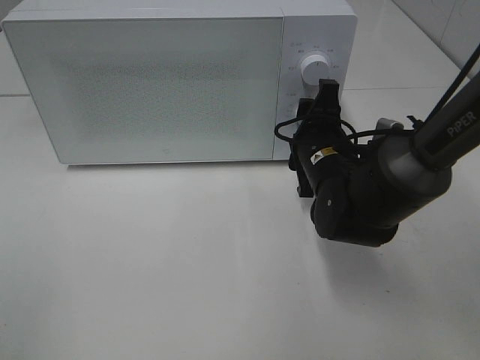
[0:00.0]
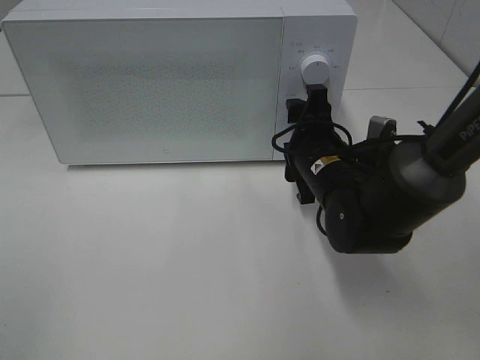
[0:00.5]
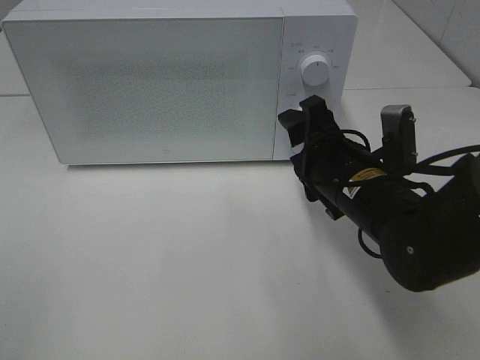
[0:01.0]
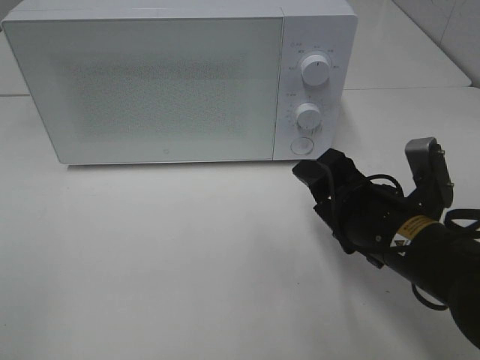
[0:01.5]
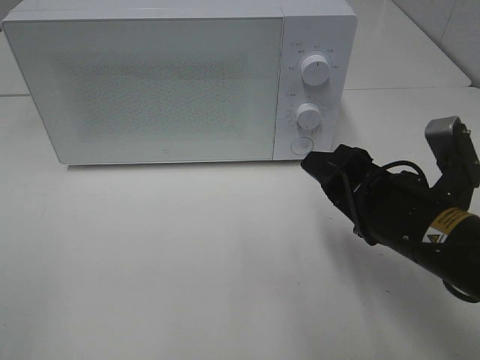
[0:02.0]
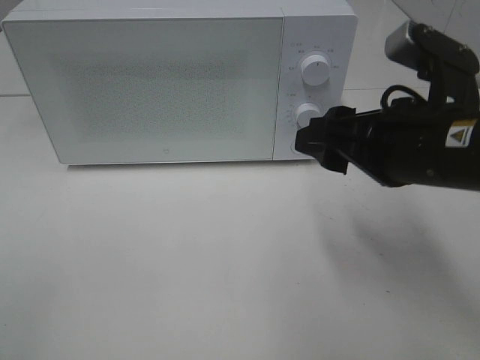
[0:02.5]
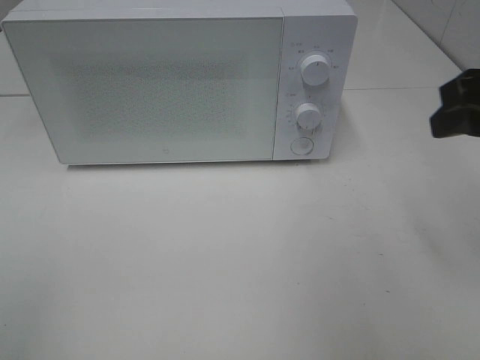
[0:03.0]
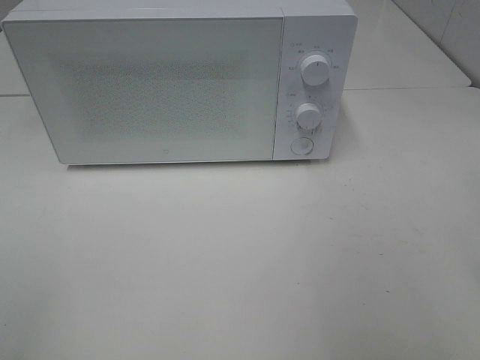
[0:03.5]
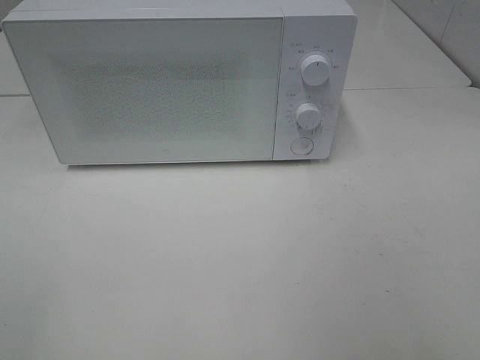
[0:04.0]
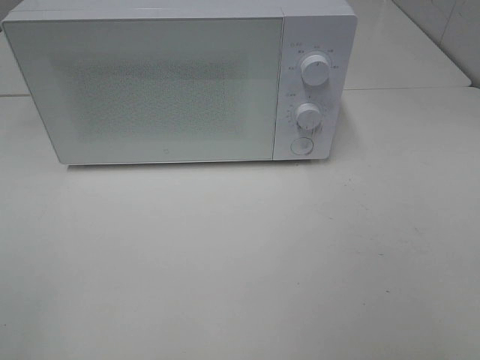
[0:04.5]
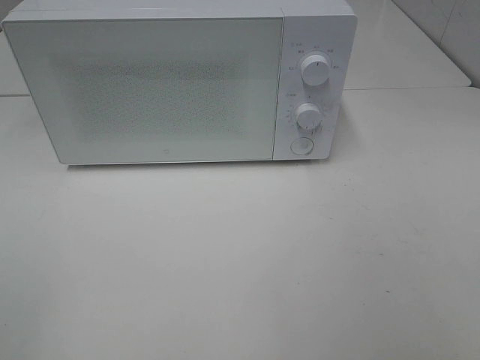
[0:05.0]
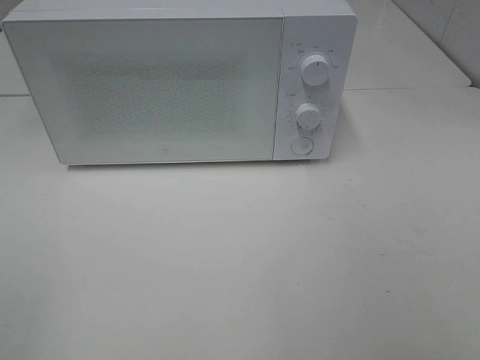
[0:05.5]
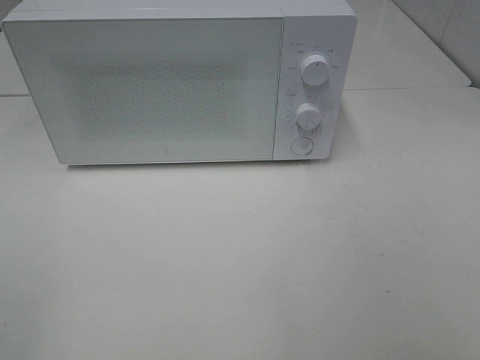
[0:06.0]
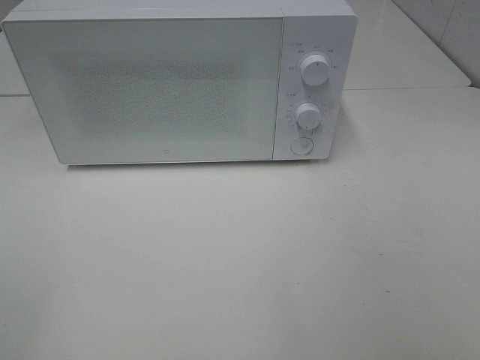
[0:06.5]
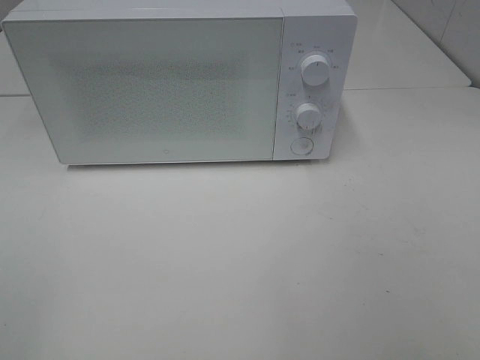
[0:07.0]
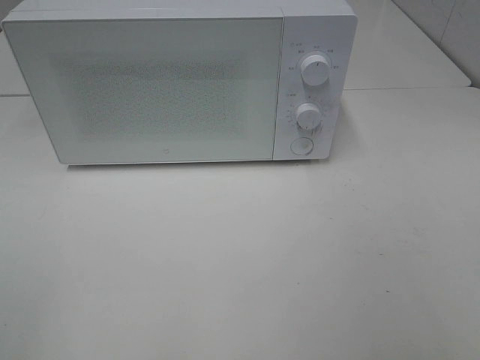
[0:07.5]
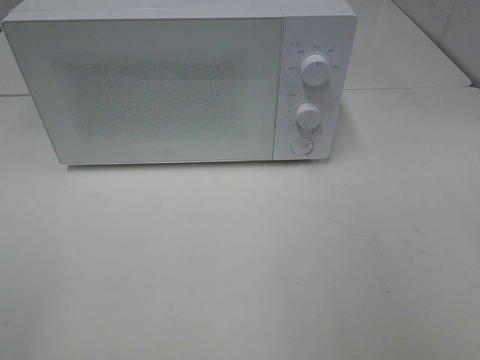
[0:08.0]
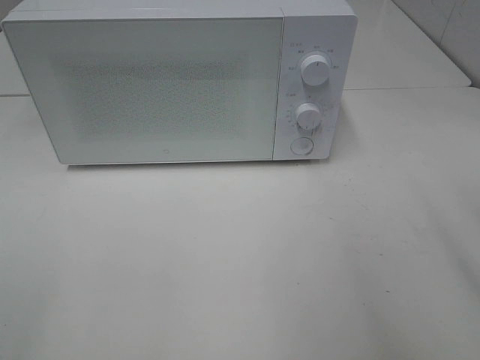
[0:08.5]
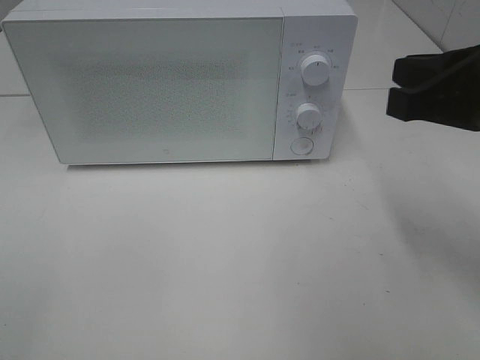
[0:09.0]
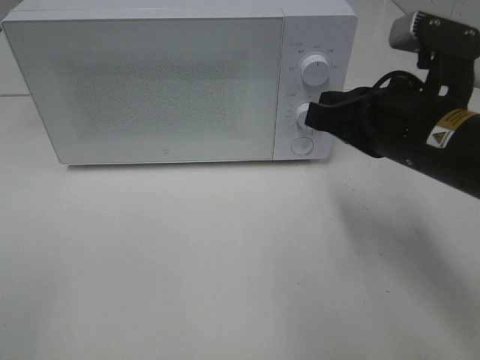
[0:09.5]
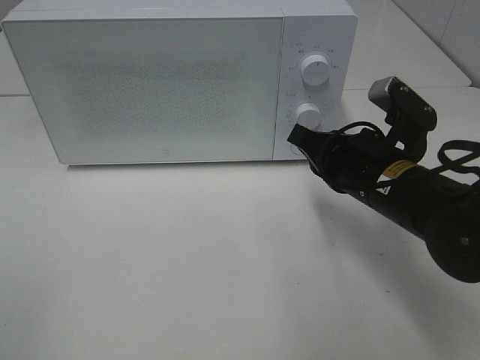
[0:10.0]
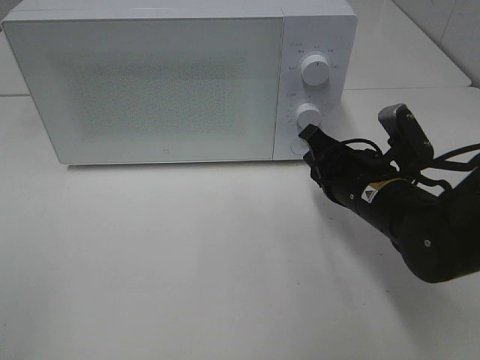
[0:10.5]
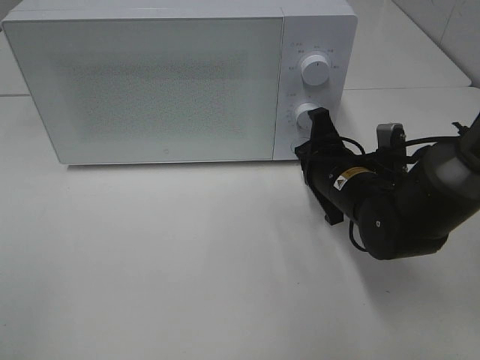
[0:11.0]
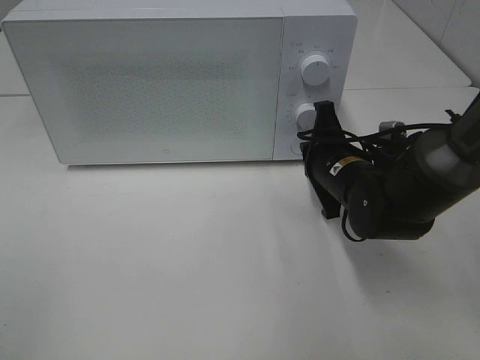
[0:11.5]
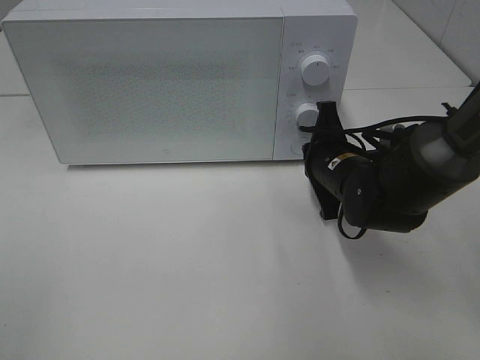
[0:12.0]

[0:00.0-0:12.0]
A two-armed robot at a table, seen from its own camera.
Task of the whole recording: Heat Sandwich.
0:00.0 to 0:02.0: The right gripper heads backward, covering roughly 15 cm.
0:02.0 to 0:04.0: The right gripper heads upward, backward and to the right, covering roughly 25 cm.
0:08.0 to 0:10.0: The right gripper shifts about 30 cm forward, downward and to the left, and closes.
0:10.0 to 0:12.0: The right gripper travels forward and downward by roughly 10 cm.

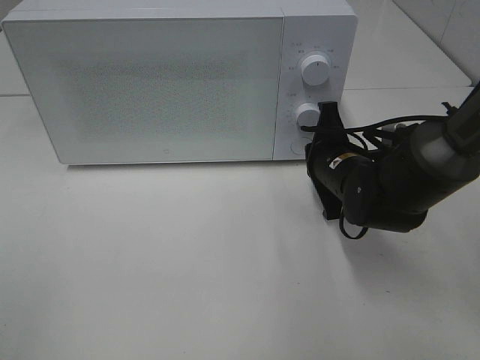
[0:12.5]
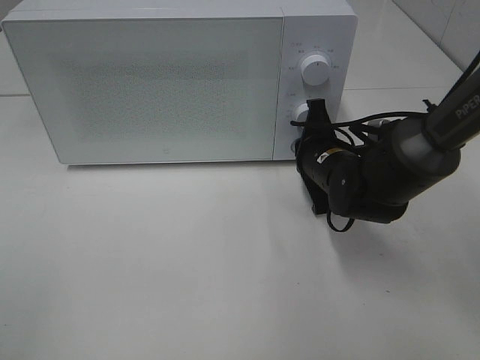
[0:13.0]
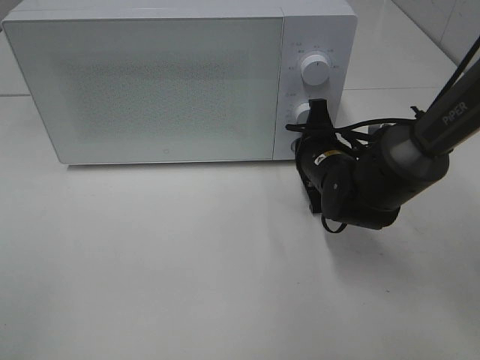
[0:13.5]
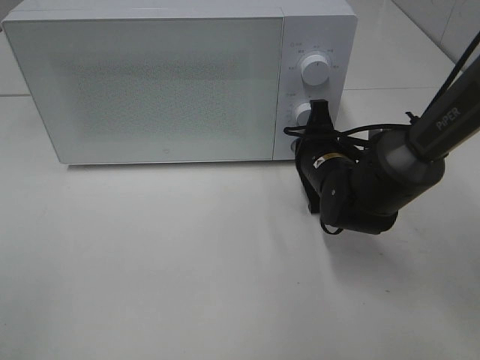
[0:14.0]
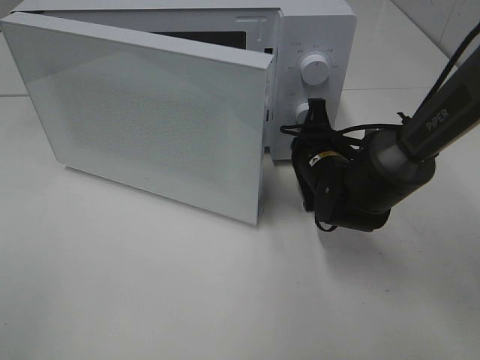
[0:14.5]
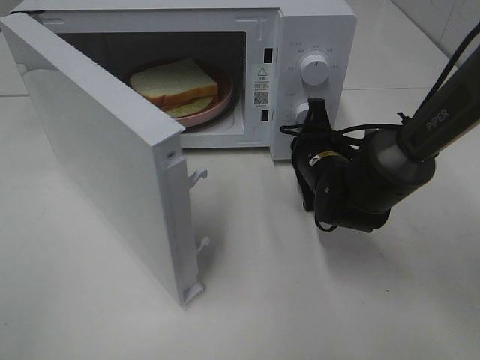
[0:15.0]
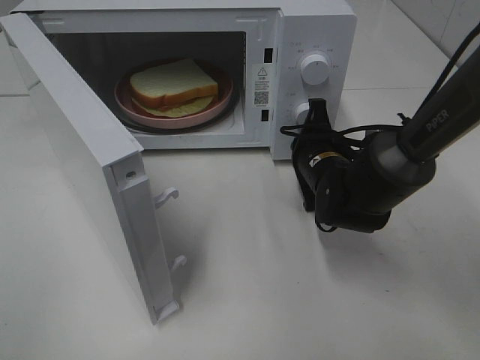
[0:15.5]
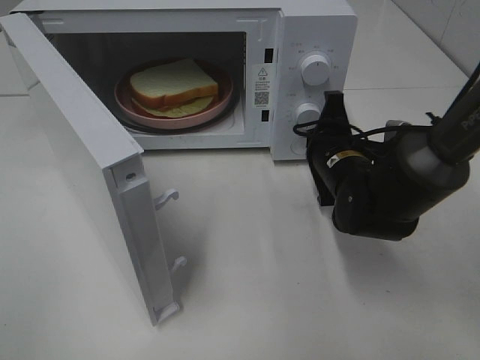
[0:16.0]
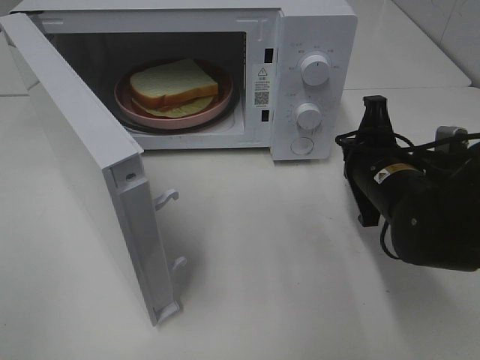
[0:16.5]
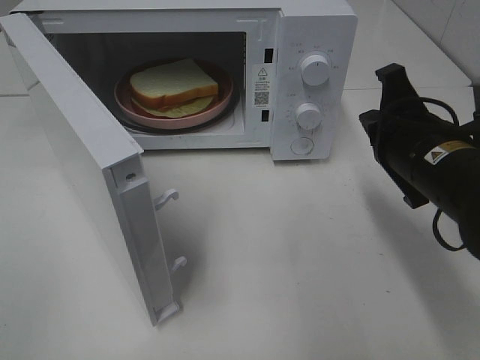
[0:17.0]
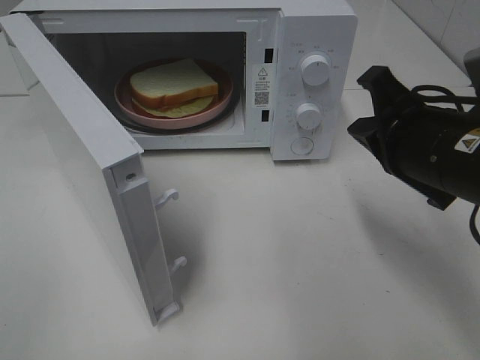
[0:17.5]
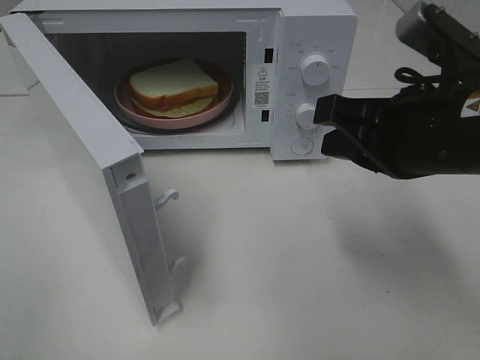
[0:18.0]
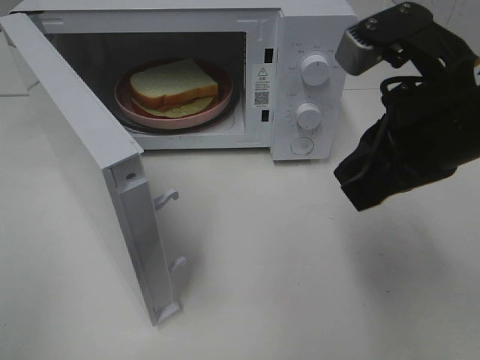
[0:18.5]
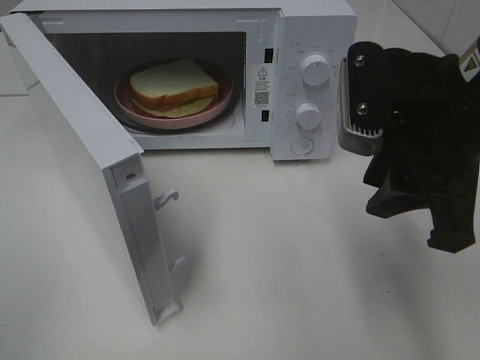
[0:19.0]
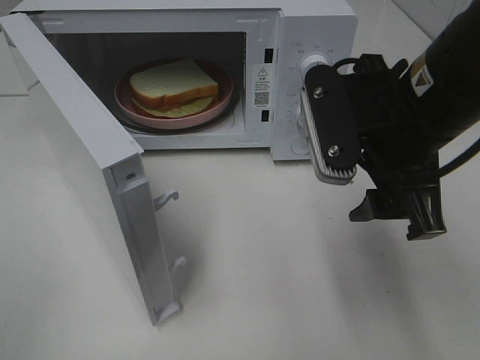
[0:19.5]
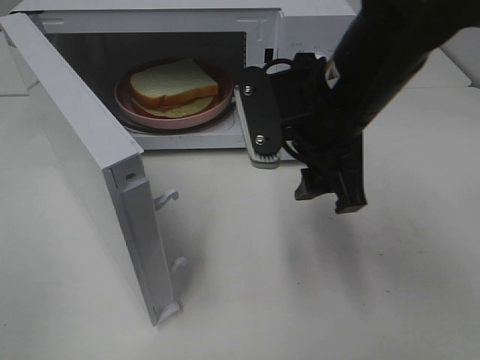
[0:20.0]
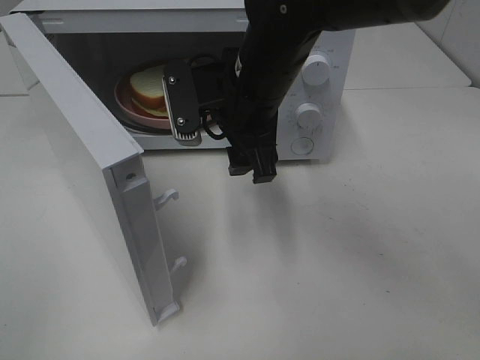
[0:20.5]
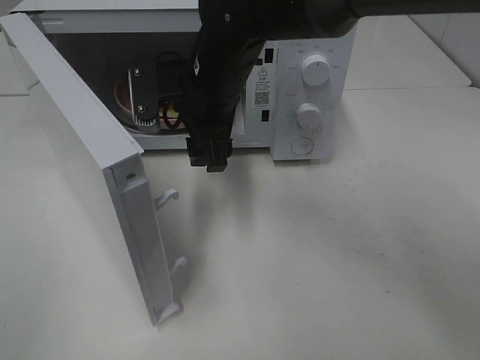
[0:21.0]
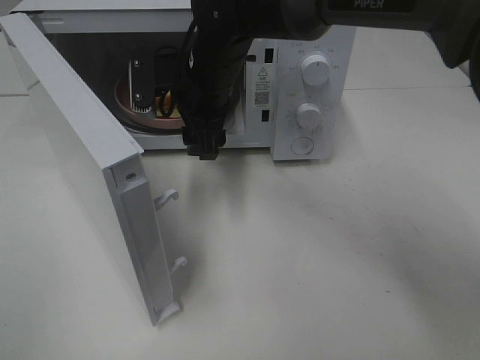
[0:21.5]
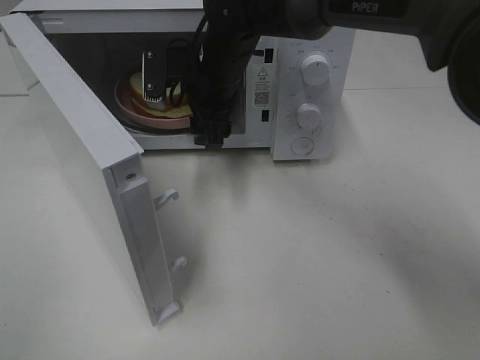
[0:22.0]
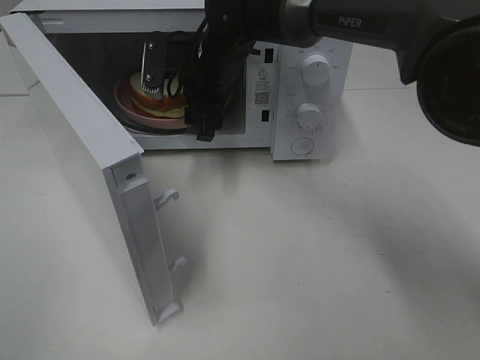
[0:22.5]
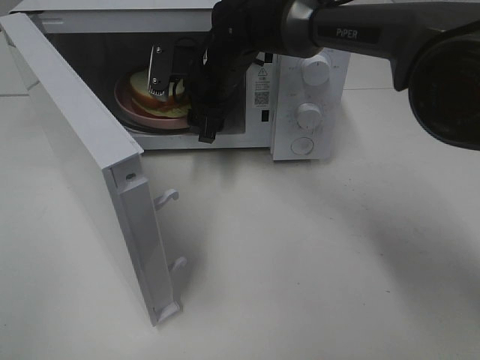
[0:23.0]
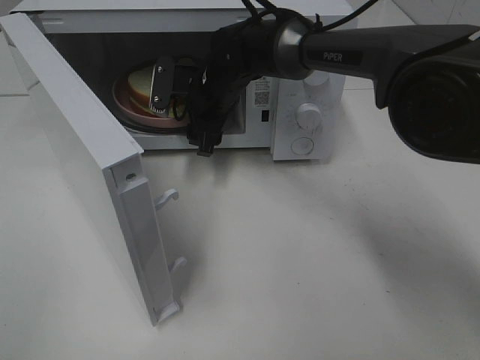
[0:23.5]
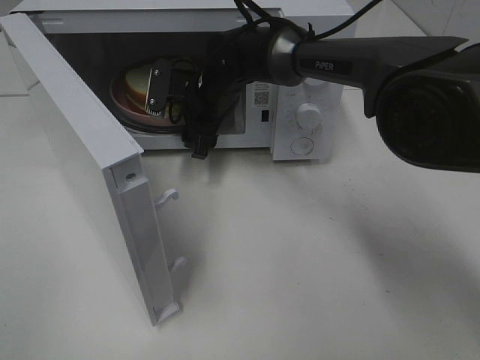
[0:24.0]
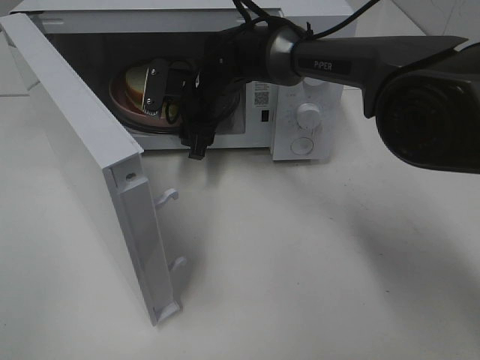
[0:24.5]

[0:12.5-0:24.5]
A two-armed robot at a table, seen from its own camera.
Task of the whole recording: Heat Sandwich.
Step, 0:12.5 to 0:16.0: Right hand: press the switch.
0:12.5 to 0:14.5: There are only small adjustments of the grippers.
0:14.5 to 0:16.5: The right gripper goes roughly 10 cm backward.
0:16.5 to 0:18.5: The right gripper is displaced upward and backward by some 15 cm.
0:18.5 to 0:20.5: The right gripper goes approximately 20 cm to the left and forward, and opens its fingers.
0:20.5 to 0:22.5: The right gripper is displaced forward by roughly 10 cm.
0:22.5 to 0:24.5: The right gripper travels downward by about 5 cm.

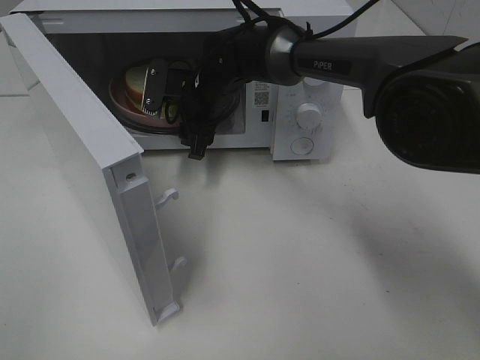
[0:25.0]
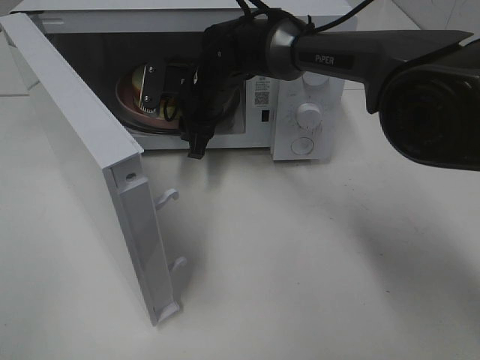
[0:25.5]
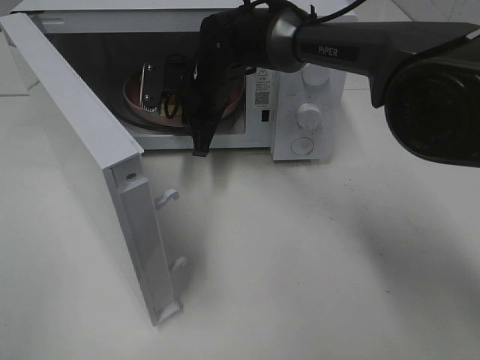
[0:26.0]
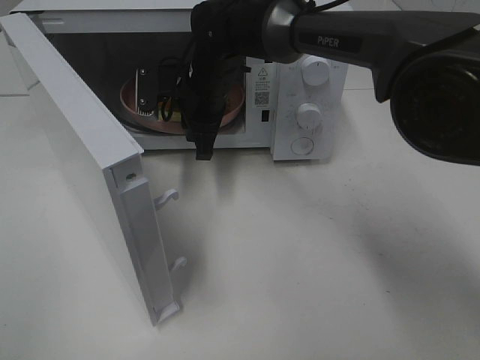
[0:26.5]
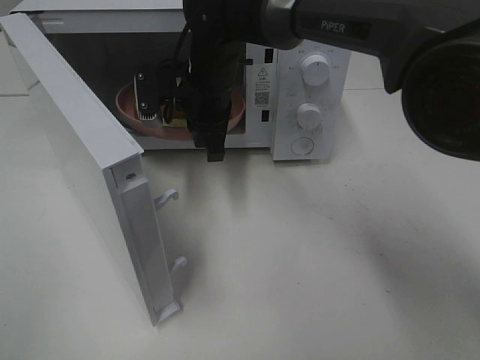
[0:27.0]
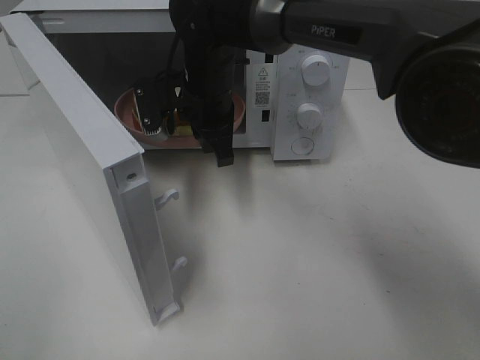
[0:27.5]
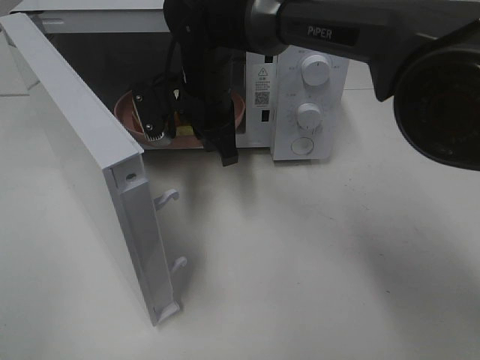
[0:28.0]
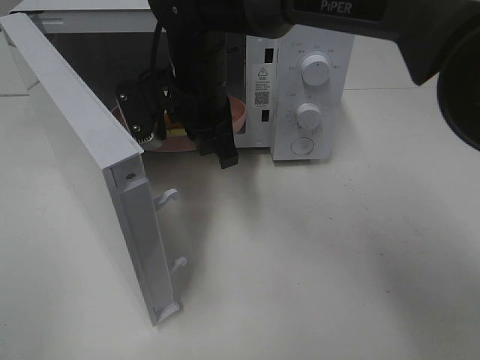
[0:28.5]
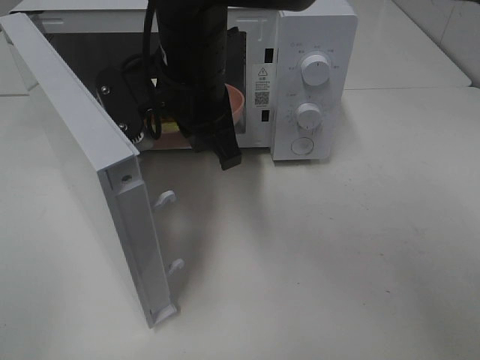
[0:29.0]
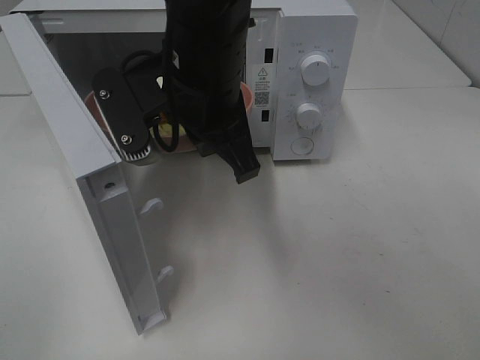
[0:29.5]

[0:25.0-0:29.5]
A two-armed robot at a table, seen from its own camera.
Task of the whole recording: Heat Sandwich.
0:25.0 to 0:27.0: The right gripper changes place by some 5 cm, and closes its fingers.
0:27.0 to 0:29.5: The right gripper travels backward and upward by approximately 15 cm.
